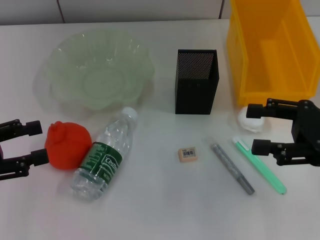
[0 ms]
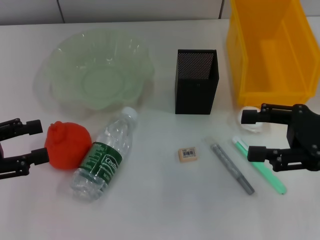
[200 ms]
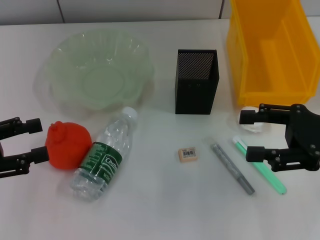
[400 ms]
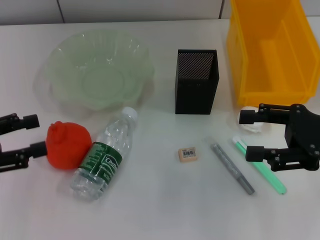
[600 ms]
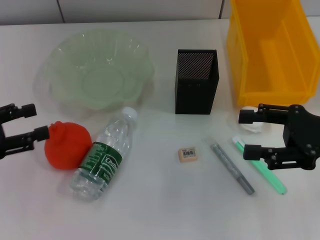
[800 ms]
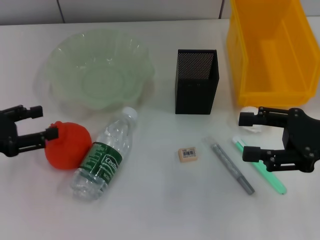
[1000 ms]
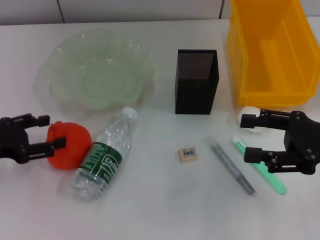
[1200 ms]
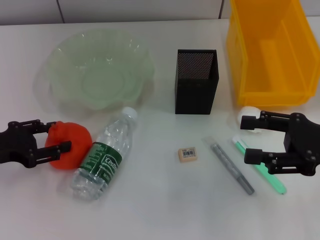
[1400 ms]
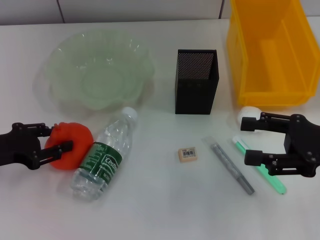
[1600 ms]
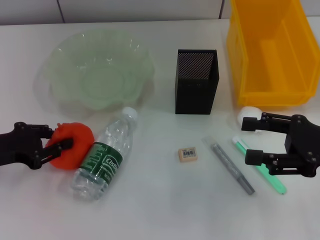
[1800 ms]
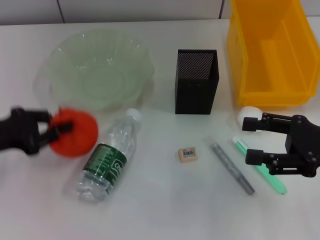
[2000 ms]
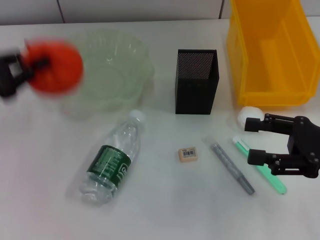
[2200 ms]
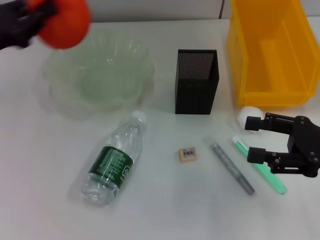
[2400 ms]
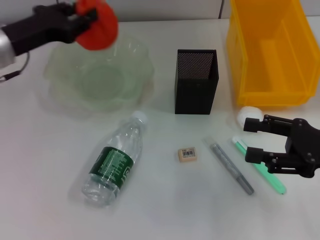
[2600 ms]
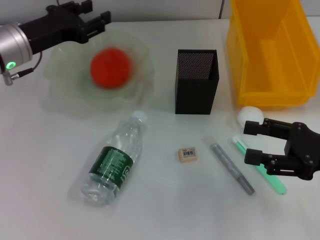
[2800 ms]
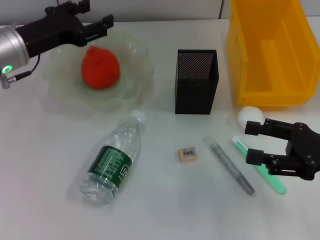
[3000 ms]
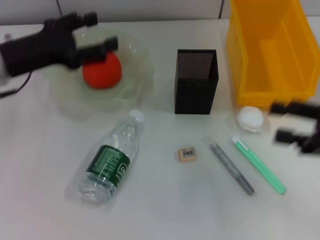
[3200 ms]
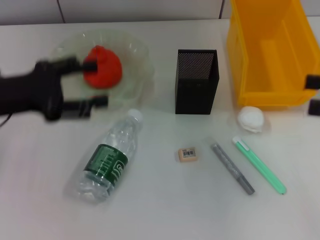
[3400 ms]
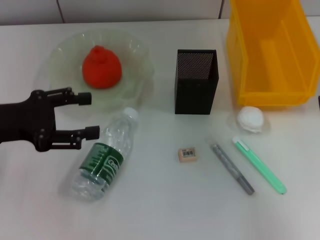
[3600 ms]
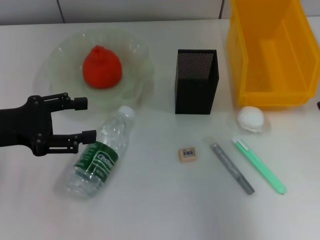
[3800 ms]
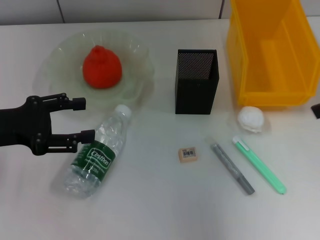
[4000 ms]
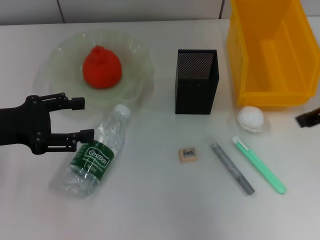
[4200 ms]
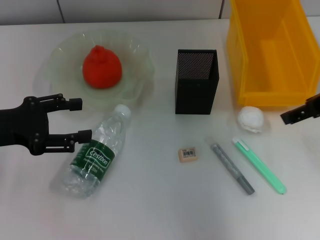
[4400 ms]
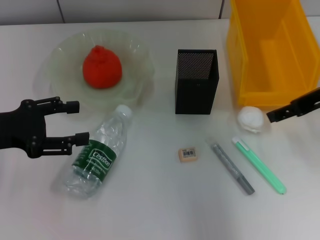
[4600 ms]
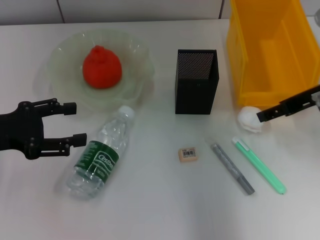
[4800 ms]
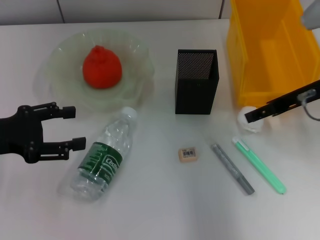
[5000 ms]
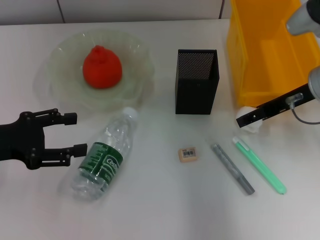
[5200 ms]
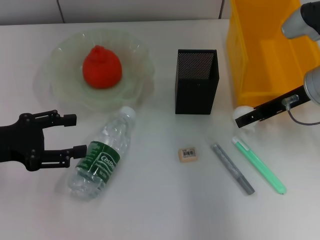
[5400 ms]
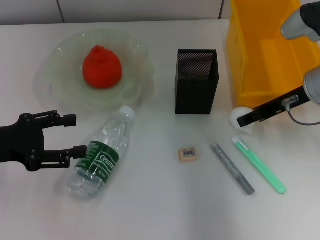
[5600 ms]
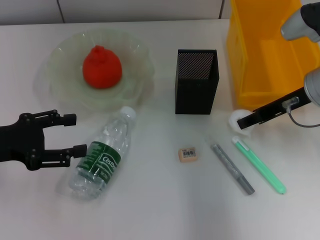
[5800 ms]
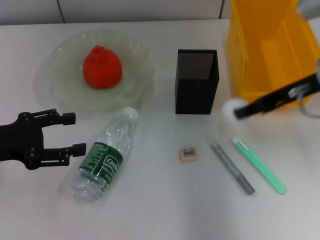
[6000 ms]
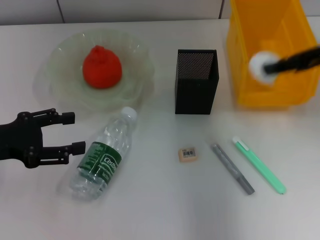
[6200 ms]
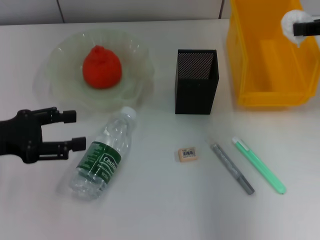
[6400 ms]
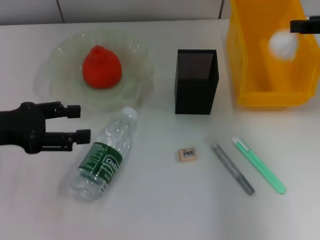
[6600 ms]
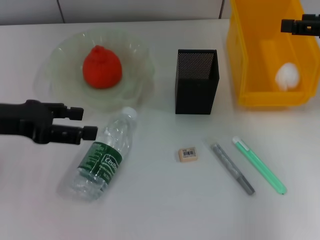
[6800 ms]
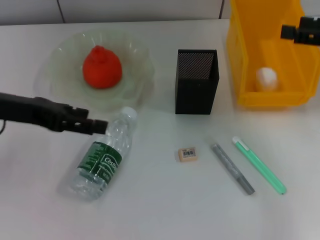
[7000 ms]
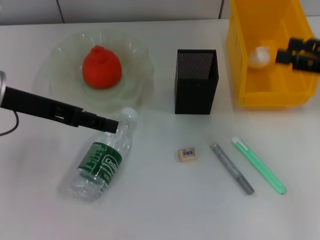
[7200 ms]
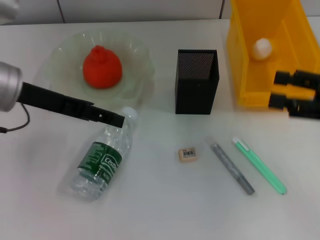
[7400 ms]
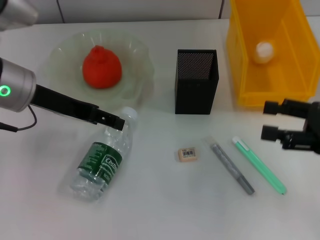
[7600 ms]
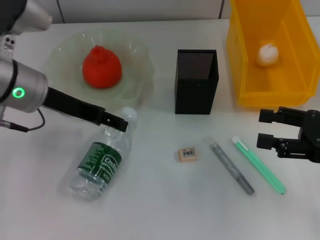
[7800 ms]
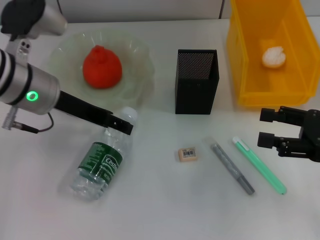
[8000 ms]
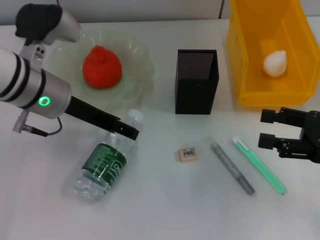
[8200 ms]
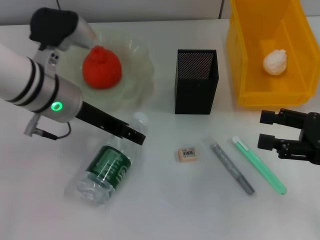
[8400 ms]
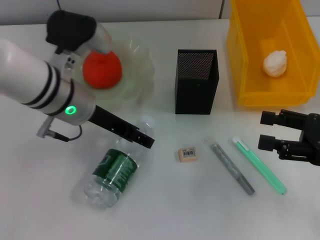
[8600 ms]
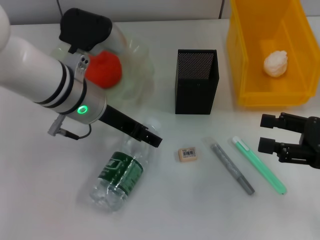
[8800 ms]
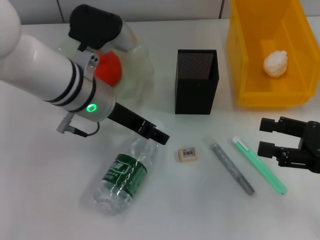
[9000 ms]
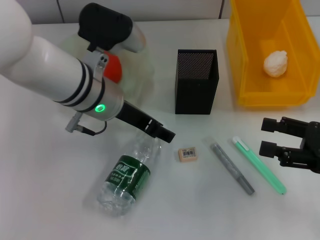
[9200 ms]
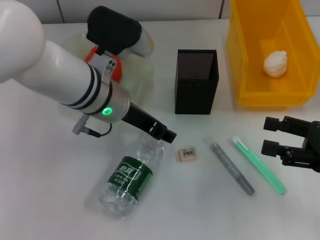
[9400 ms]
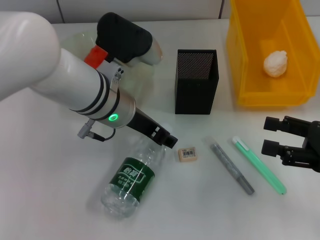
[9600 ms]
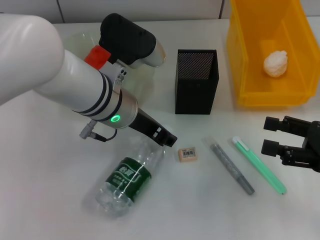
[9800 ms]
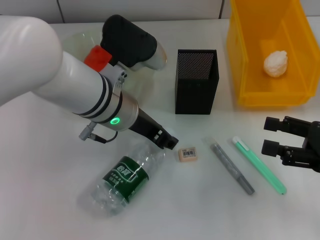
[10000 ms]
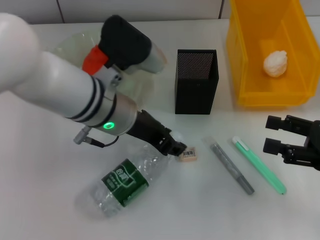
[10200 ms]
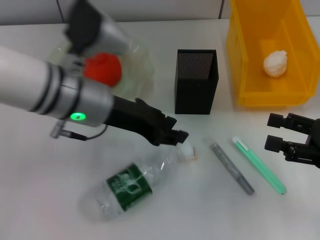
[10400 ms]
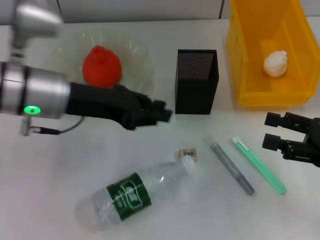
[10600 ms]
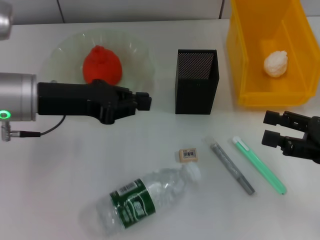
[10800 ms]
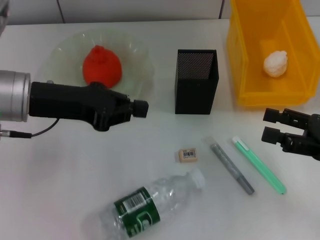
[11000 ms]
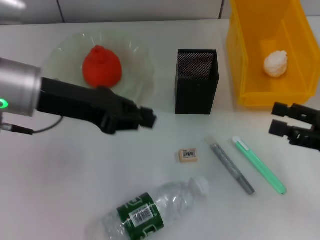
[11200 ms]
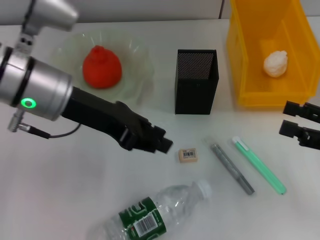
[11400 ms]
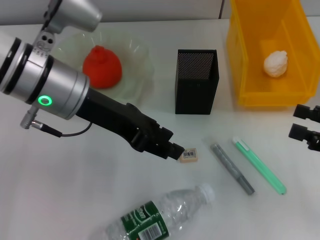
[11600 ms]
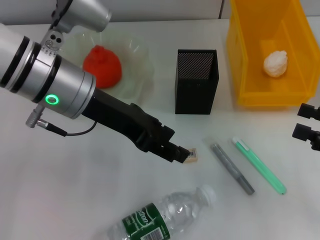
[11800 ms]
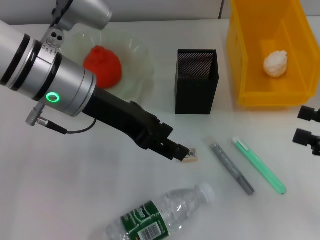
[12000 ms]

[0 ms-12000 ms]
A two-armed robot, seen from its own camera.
Step, 0 ms to 1600 ms: Grab the orange with the left hand.
Step, 1800 ms to 3000 ms: Place the orange into the fruit bowl with the left hand.
Step, 3400 ms to 5400 ms: Grab the paper ball with the right hand.
Step, 5800 ms to 6800 ms: Place the paper ball into the trash can with the right hand.
0 ms to 1600 ms: The left gripper ends up approximately 5 cm from where it was.
1600 ms to 3000 ms: The left gripper is displaced forward, to the right and upward by roughly 15 cm, and closes, then opens again.
3000 ms to 4400 ms: The left gripper heads backward and to the left, covering some 10 cm. Meanwhile the right gripper goes approximately 15 cm upward and forward.
4400 ms to 6000 ms: The right gripper closes its fingers.
6000 ms to 7600 ms: The left gripper goes about 15 cm to the right, forward and upward; the right gripper heads backward, to the right and downward, covering roughly 15 cm, and opens its fingers.
7600 ms to 9000 ms: The left gripper moves to the right, about 10 cm.
9000 ms to 10400 ms: The left gripper closes its fingers.
10400 ms to 12000 ms: The left gripper reaches some 10 cm to the left, then returns, and opens up.

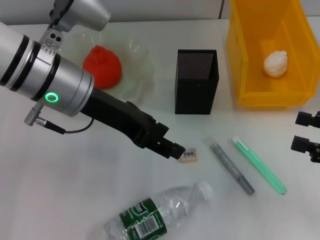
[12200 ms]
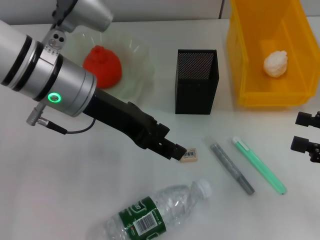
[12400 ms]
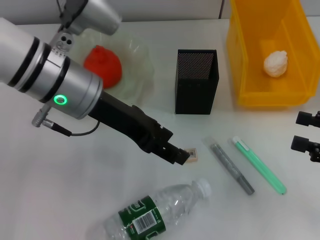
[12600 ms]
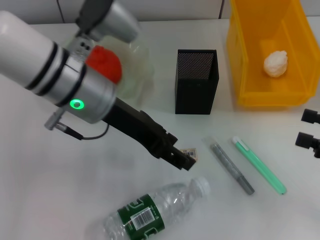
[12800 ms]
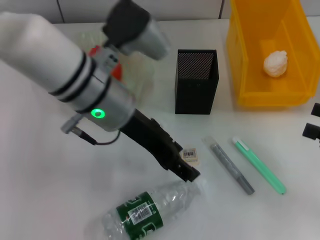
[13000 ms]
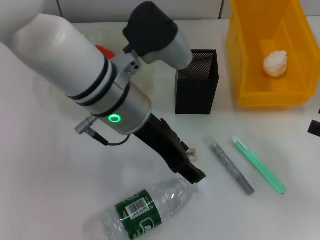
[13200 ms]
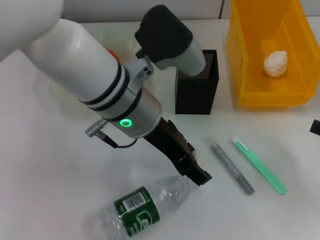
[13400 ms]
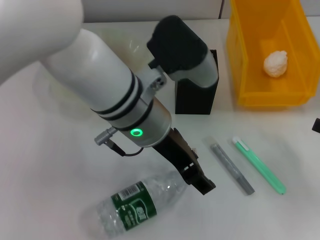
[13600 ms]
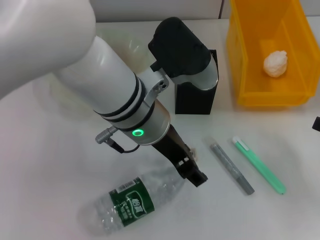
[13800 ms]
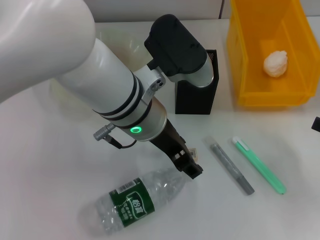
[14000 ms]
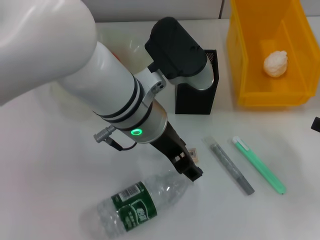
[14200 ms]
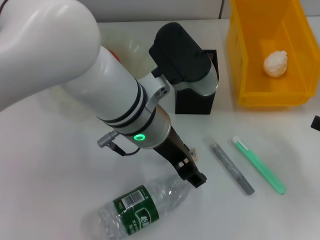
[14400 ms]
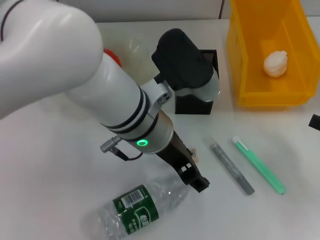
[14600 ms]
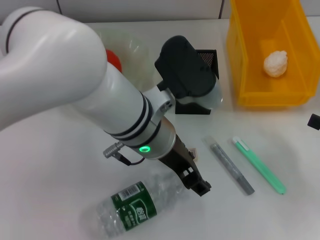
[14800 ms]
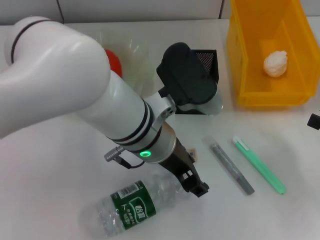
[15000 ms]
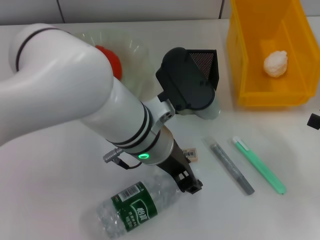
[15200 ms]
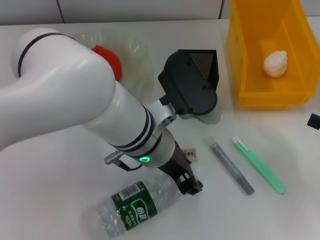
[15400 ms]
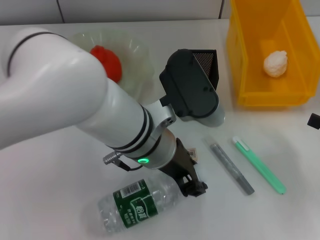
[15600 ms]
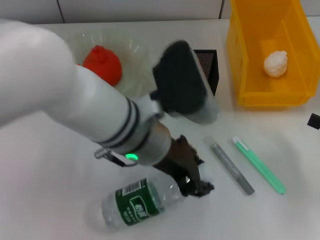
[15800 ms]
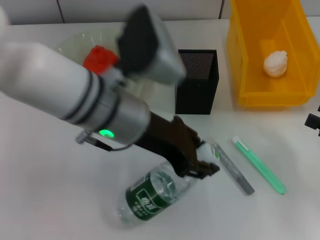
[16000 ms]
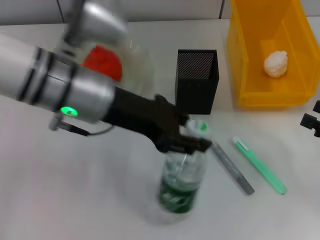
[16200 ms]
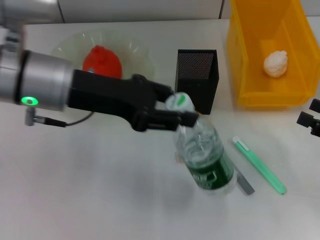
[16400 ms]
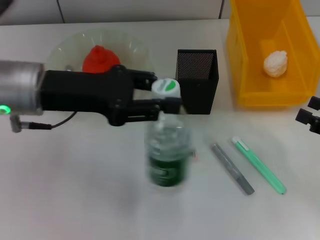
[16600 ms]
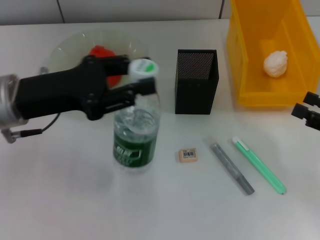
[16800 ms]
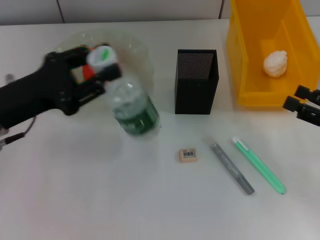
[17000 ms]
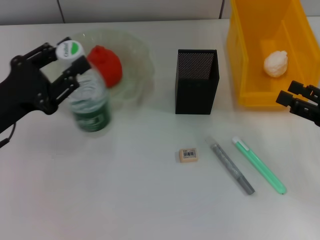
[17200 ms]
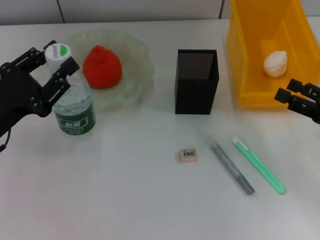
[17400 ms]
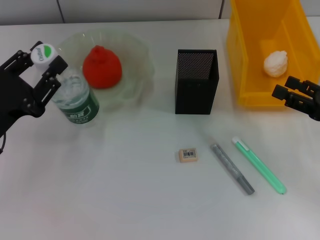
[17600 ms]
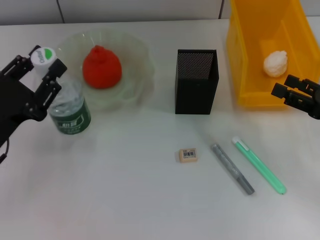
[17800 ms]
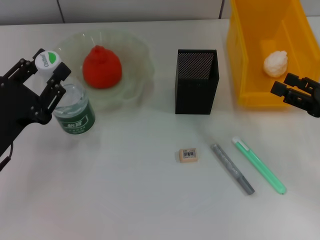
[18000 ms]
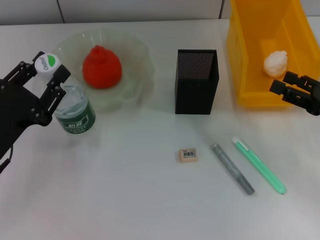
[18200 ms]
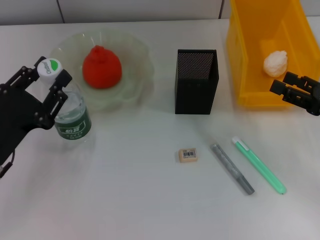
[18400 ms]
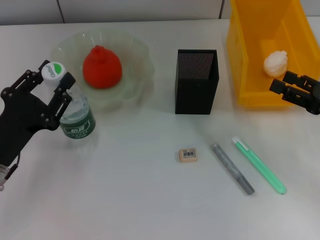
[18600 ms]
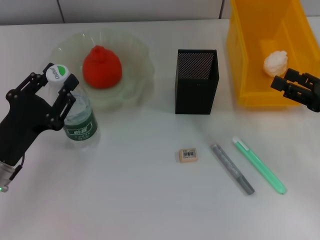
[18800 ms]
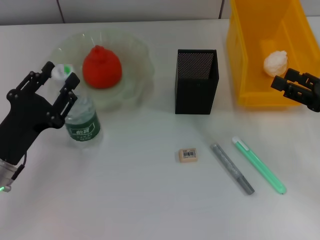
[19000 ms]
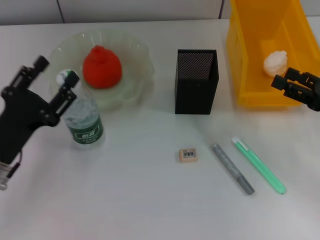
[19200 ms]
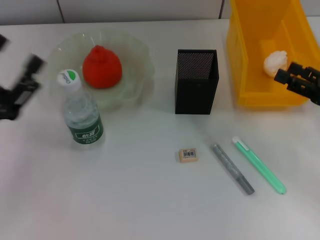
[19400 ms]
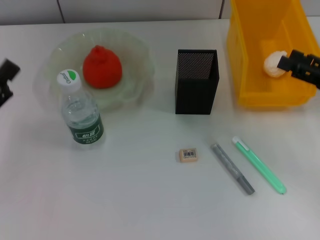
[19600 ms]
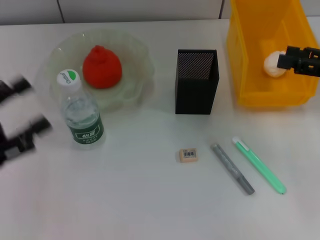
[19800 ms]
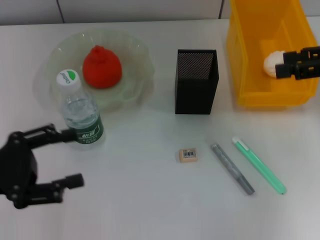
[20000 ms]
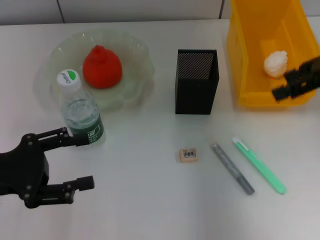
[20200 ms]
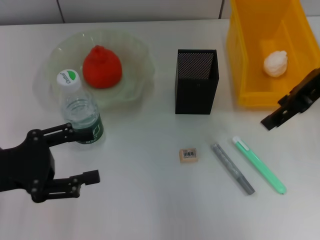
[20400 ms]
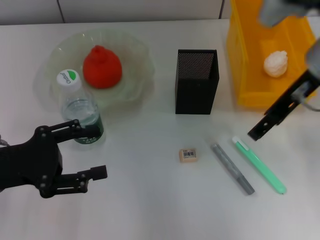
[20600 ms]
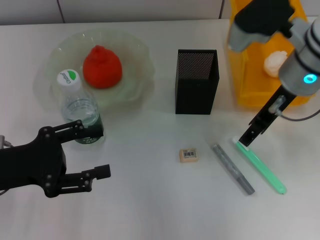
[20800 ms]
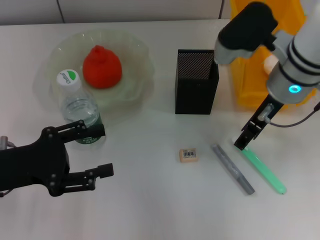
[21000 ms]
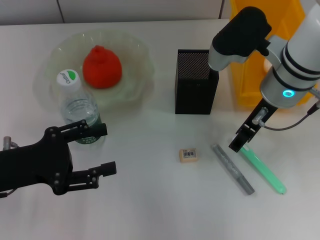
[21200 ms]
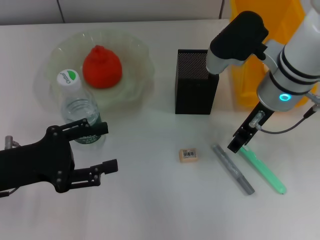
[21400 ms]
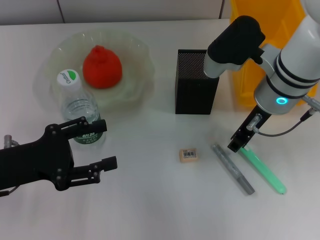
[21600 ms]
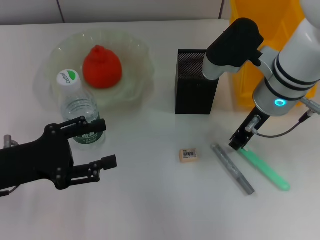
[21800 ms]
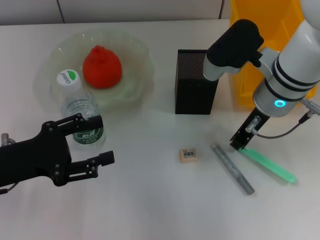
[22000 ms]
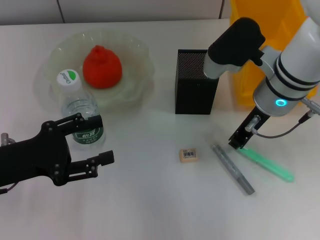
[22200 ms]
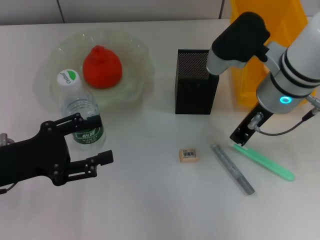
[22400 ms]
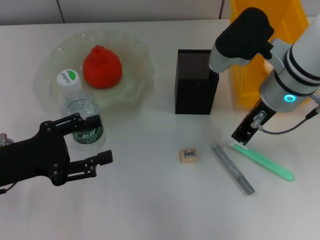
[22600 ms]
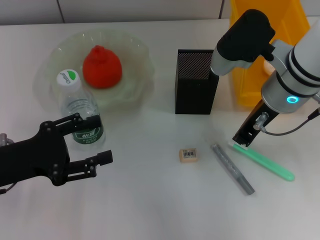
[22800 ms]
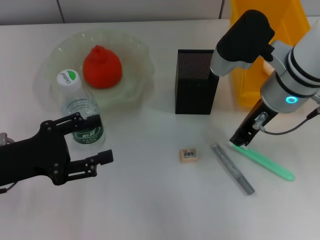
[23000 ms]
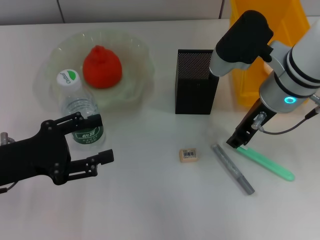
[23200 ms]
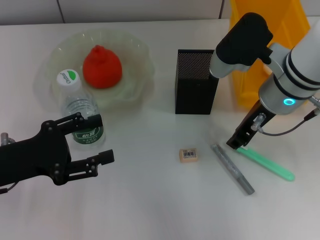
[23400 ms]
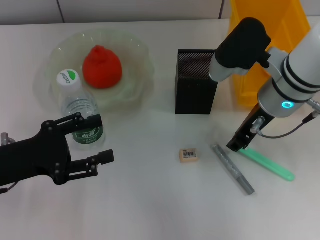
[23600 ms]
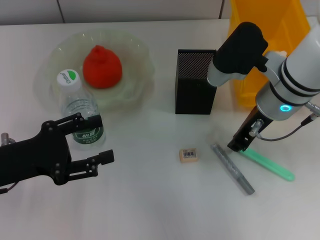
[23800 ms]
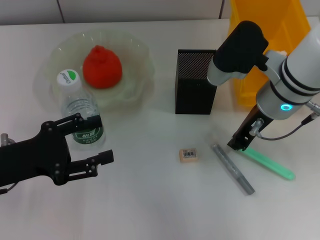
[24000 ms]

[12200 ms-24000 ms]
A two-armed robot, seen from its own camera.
Step, 12200 ms to 15400 ms: Grab the water bottle with the left hand.
Step, 15600 ms to 19000 ms: Place the water bottle on the table with the left hand.
Step, 19200 ms to 23600 ms: Grab the blue utility knife with the right hand.
12200 ms to 13600 ms: The left gripper heads to the right, covering roughly 10 cm.
15200 ms to 16600 ms: The left gripper is displaced to the left by some 15 cm.
16600 ms to 18200 ms: The right gripper changes place by roughly 5 cm, while the left gripper shifts about 15 cm downward, backward and to the left.
18200 ms to 19600 ms: The left gripper travels to the left by about 5 cm, and opens.
19600 ms to 21000 ms: The right gripper goes roughly 20 cm to the left.
21000 ms to 22600 ms: The right gripper closes.
22600 ms to 24000 ms: The grippers make only small movements.
